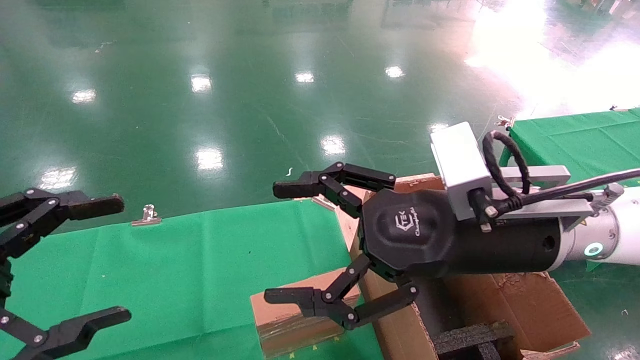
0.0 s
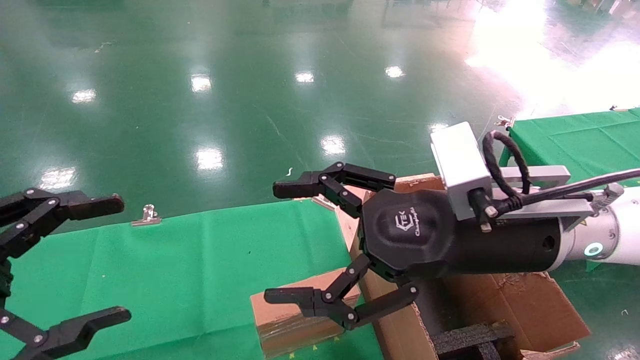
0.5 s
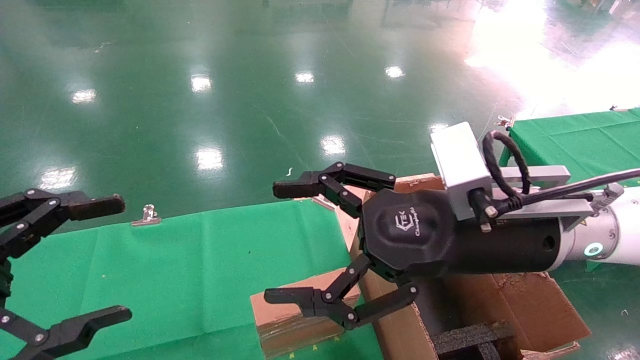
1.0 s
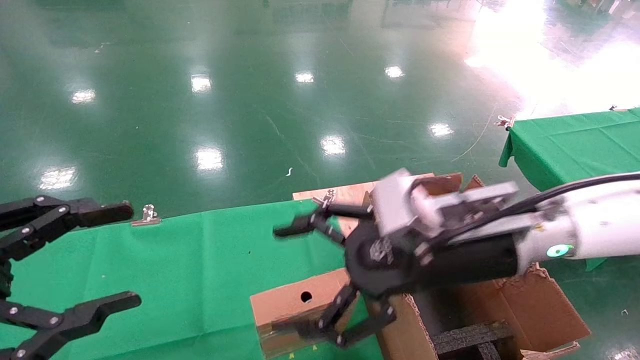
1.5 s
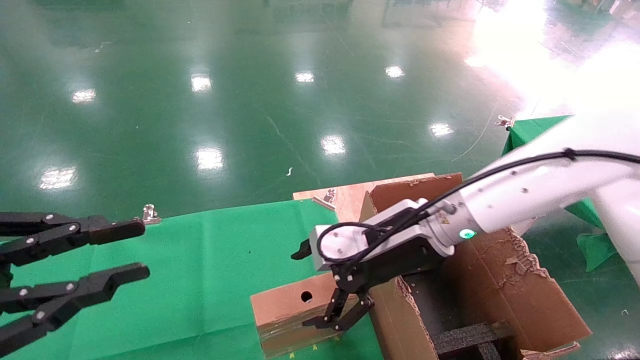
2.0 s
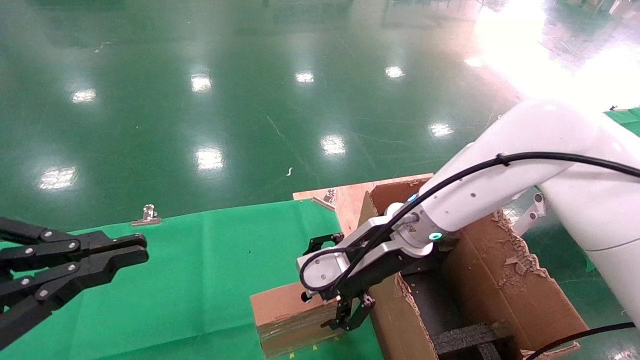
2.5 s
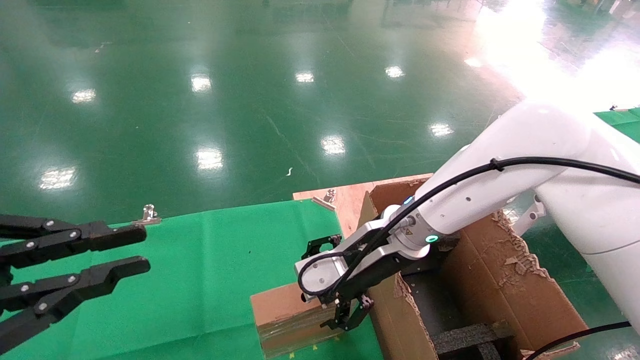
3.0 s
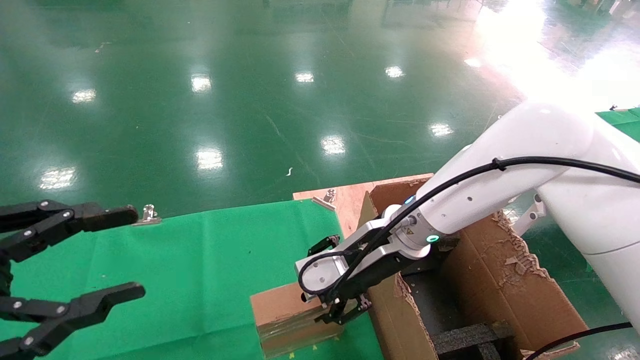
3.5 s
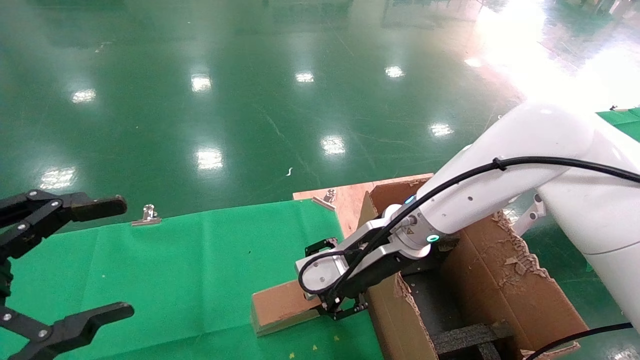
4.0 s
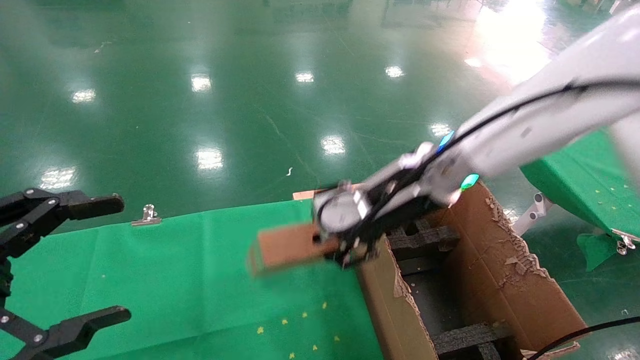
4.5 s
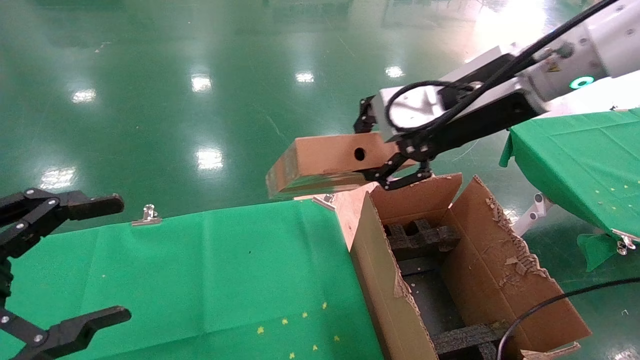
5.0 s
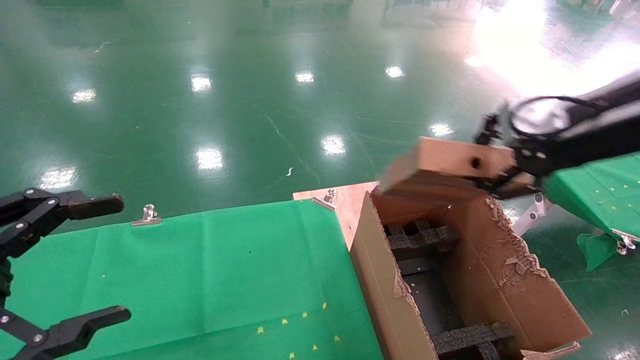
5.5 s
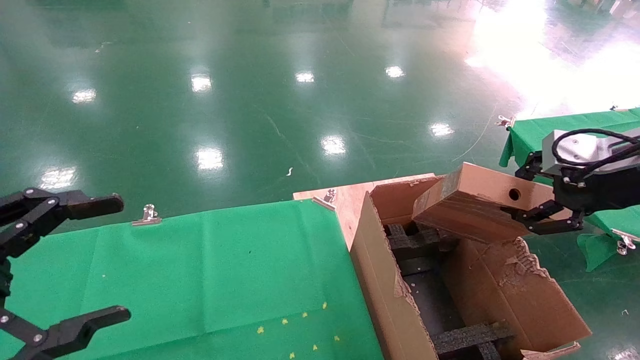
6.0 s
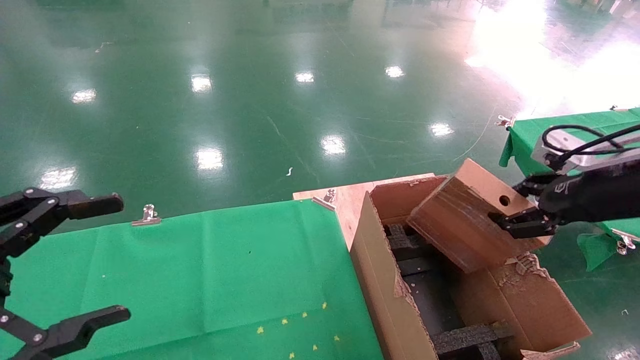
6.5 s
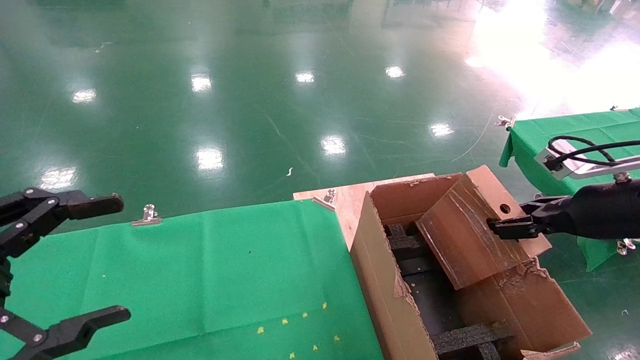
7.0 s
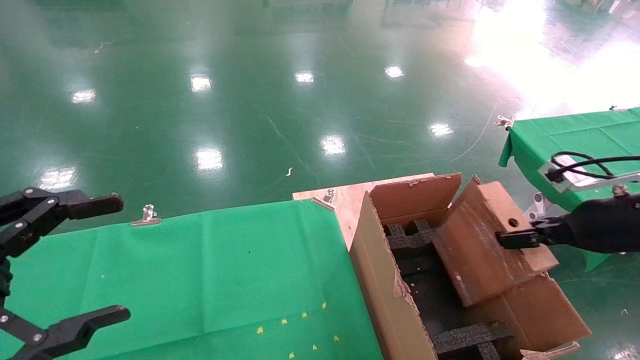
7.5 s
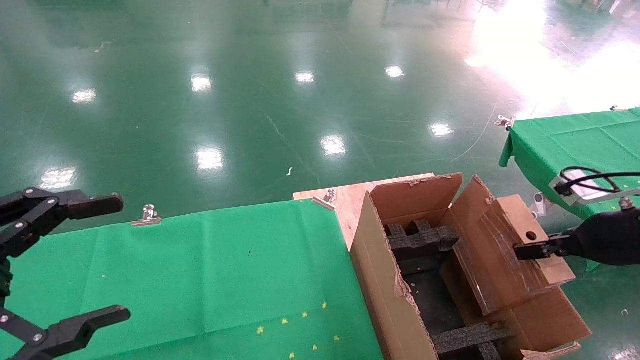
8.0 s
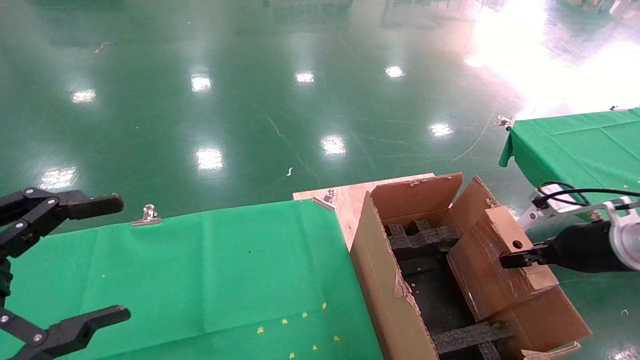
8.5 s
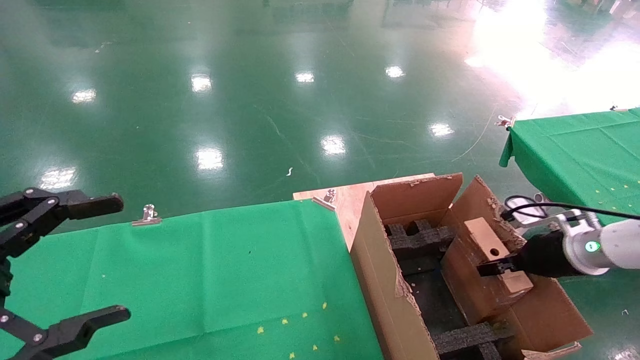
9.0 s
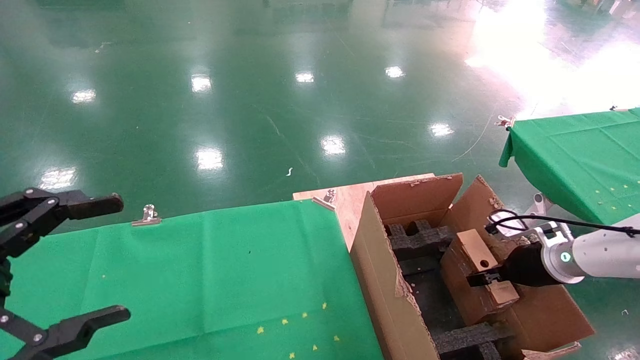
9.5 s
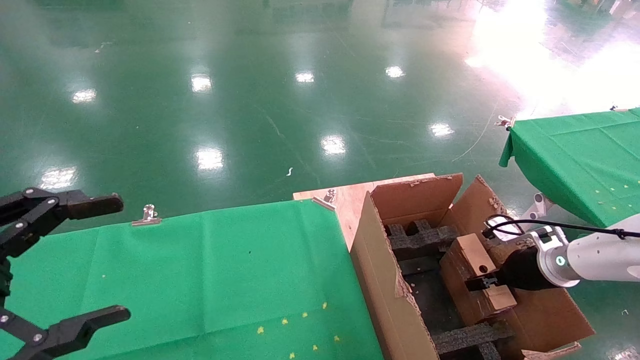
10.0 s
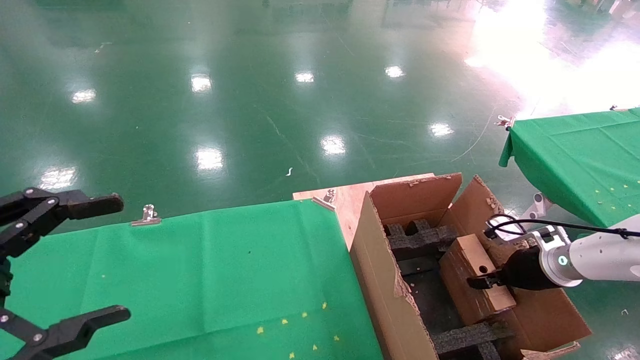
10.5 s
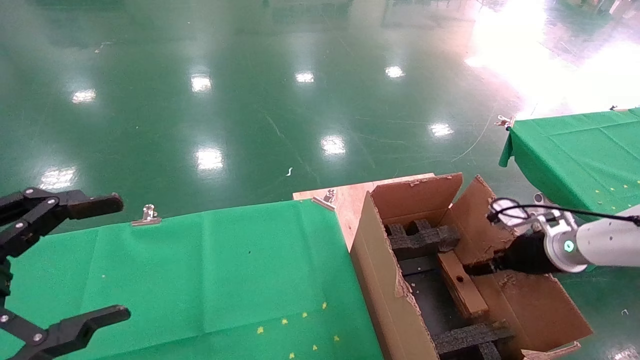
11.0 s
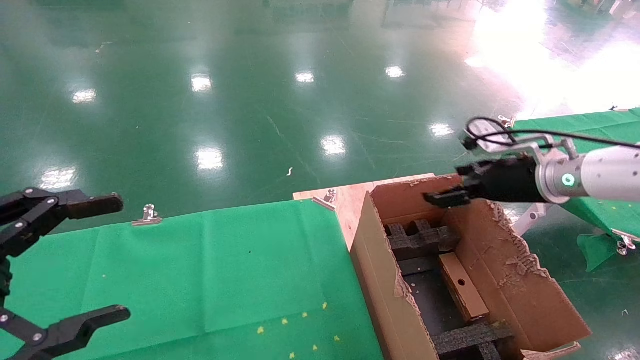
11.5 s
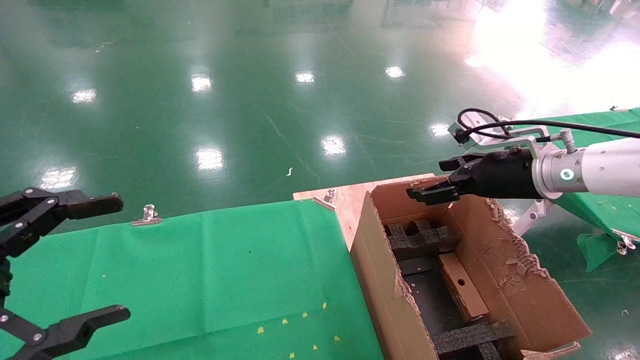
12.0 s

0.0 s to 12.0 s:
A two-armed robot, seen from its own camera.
Task of the whole recording: using a robotic arm to pick up a cardboard box and palace it the carton.
Step, 1.5 to 3.5 s: Pick up the mouse and the power cord paper box.
Step, 4.0 to 11.0 s: Place the mouse and the power cord paper box into the container.
0.0 to 2.0 s: The right gripper travels forward and downward by approximately 10 cm; the left gripper closes.
2.0 to 4.0 s: The left gripper opens its fingers. The right gripper closes.
4.0 to 6.0 s: The right gripper travels to the right and upward by about 30 cm.
6.0 to 8.0 s: The right gripper goes some 10 cm downward.
8.0 to 10.0 s: The right gripper is displaced downward and forward by roughly 15 cm.
10.0 to 12.0 s: The right gripper heads upward and to the left, covering approximately 20 cm, and opens.

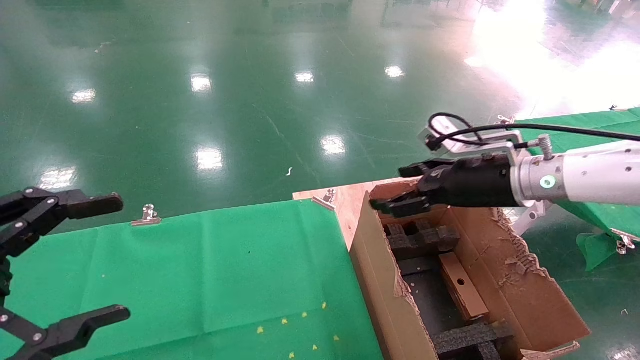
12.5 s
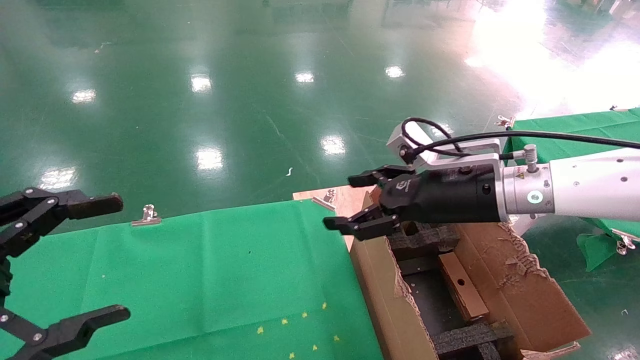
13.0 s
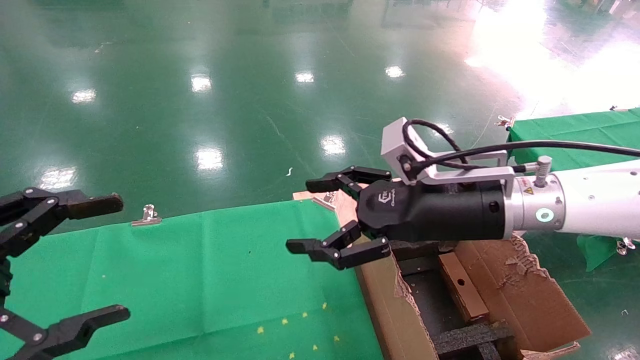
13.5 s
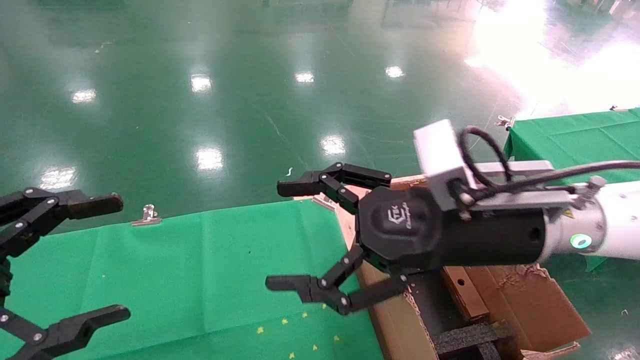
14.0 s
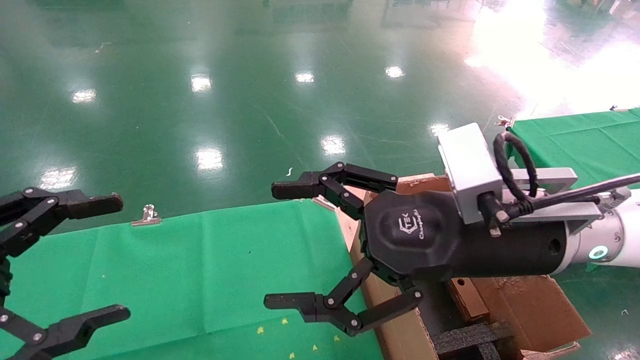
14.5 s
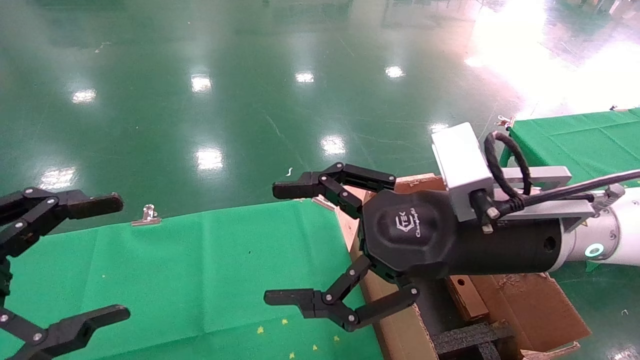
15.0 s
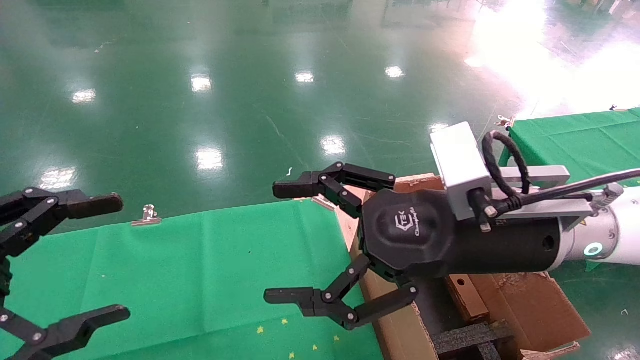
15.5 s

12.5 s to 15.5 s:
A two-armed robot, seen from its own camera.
Task of the whole recording: using a robotic arm to pick up a cardboard box and palace it the carton.
12.5 to 14.0 s: The right gripper heads backward and to the left, covering roughly 15 cm.
14.0 to 15.5 s: There are only small adjustments of the grippers.

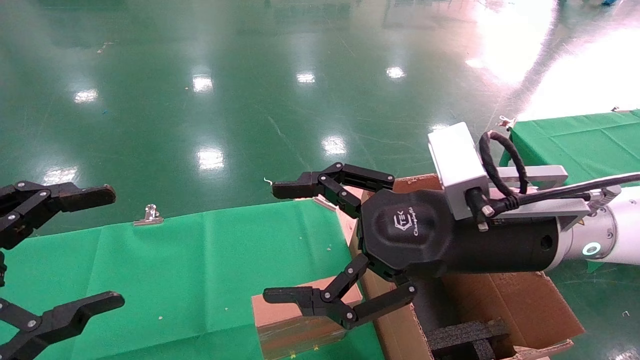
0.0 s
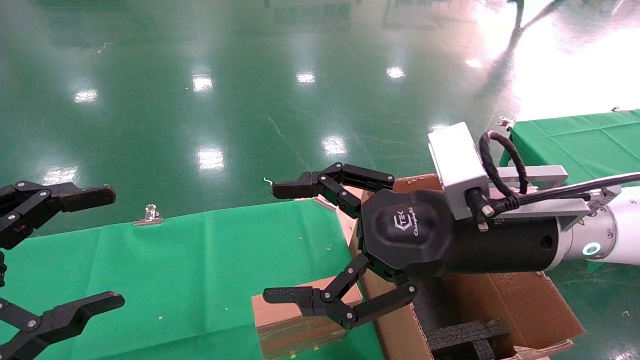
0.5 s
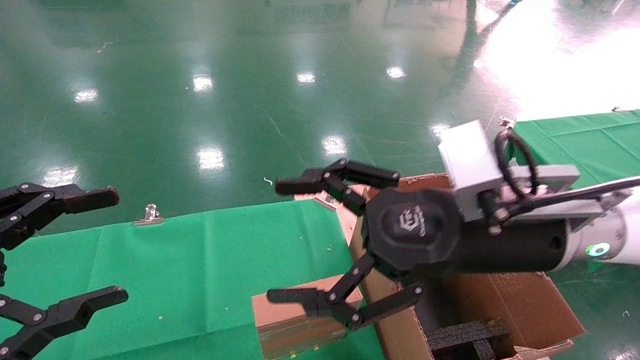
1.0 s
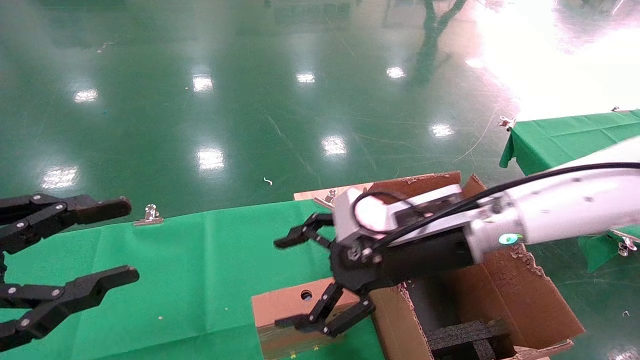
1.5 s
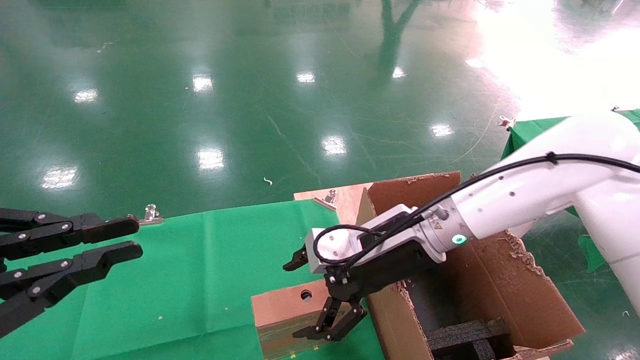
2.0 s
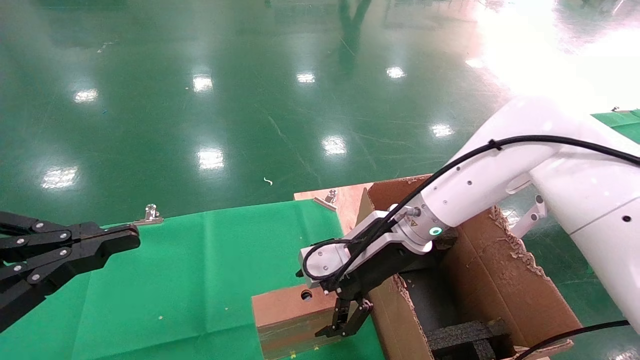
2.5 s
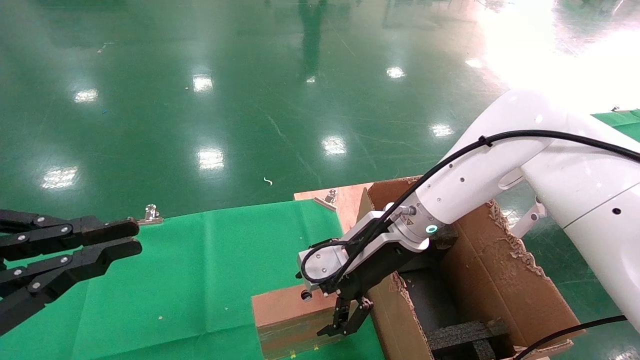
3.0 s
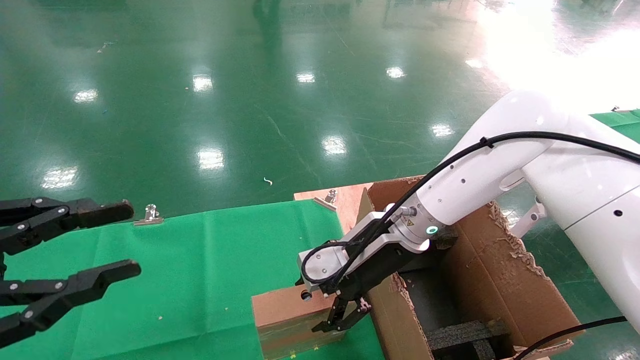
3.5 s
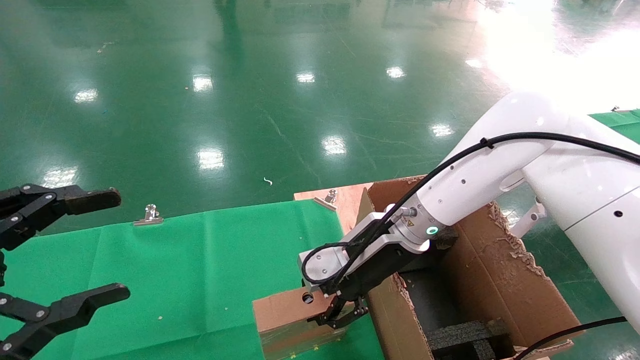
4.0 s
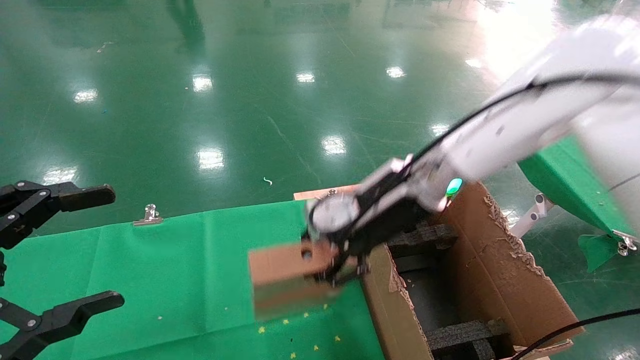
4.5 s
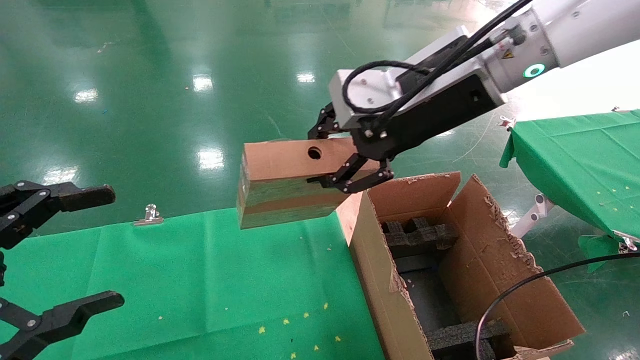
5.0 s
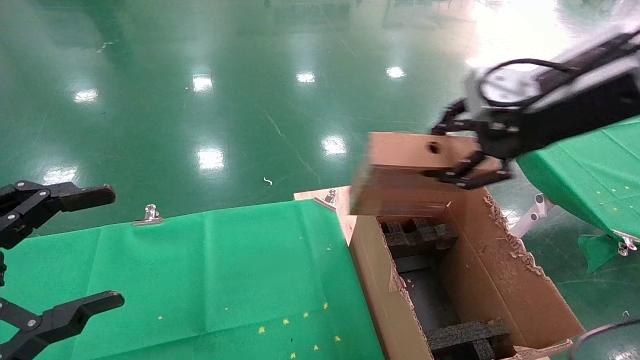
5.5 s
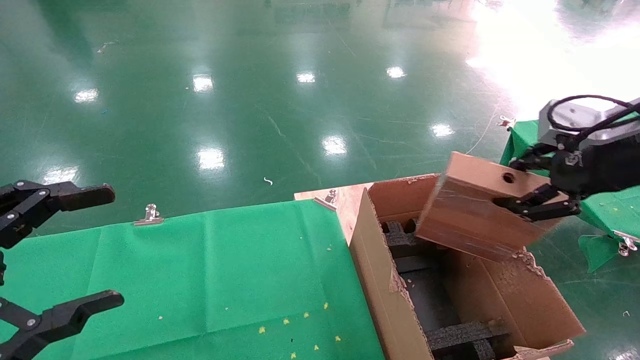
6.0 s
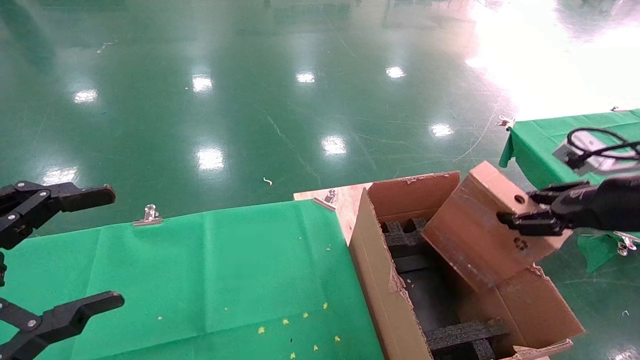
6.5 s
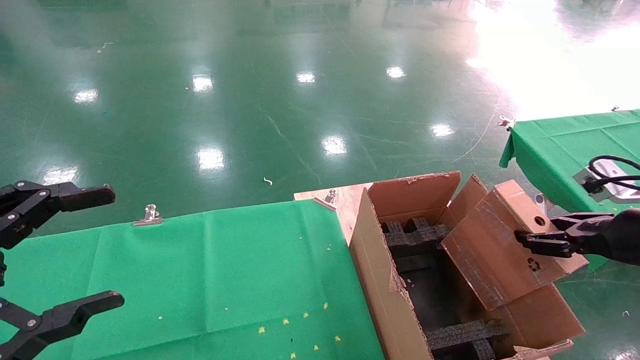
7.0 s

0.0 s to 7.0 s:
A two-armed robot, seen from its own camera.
Task of the whole recording: using a robotic arm to pick up a cardboard box and palace it the carton.
Step, 1.5 to 4.0 s: Pick up the mouse and the power cord paper box.
0.0 to 2.0 s: The left gripper closes up. The right gripper heads forward and downward, covering approximately 10 cm.
2.0 to 3.5 s: The grippers move only a little.
3.5 to 5.0 s: The left gripper opens its fingers, while the right gripper heads upward, covering some 20 cm, and closes up.
5.0 to 7.0 s: The right gripper travels to the right and downward by about 30 cm.
